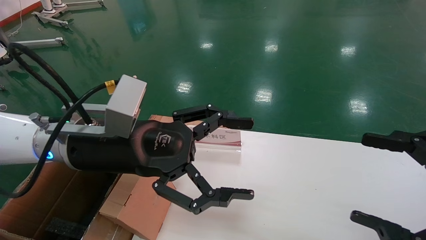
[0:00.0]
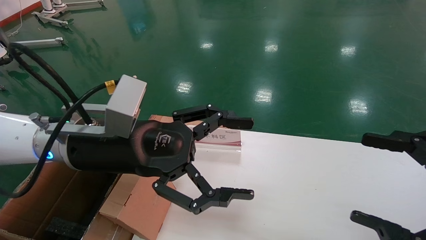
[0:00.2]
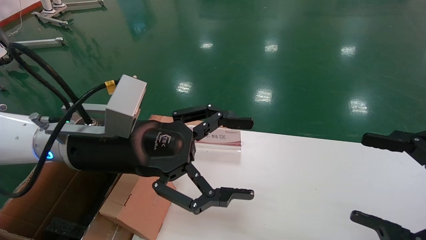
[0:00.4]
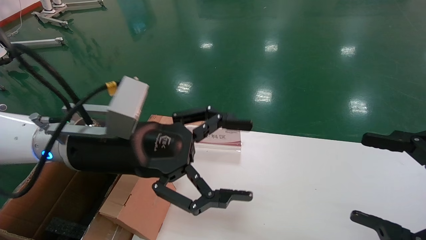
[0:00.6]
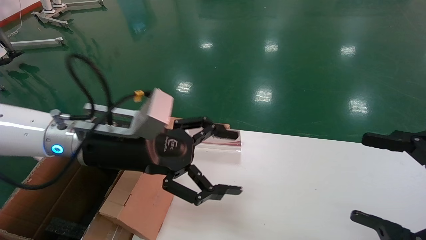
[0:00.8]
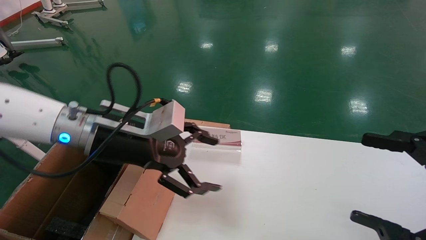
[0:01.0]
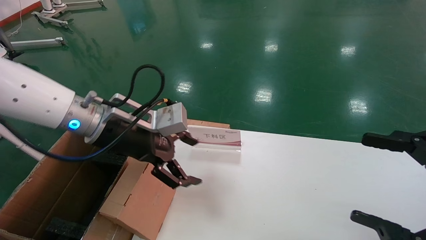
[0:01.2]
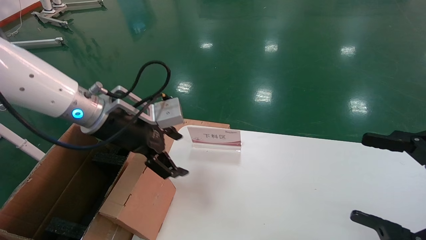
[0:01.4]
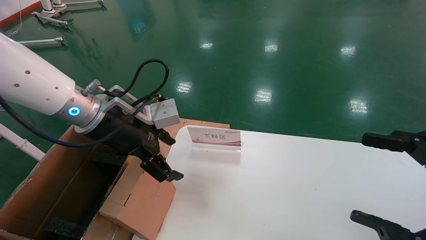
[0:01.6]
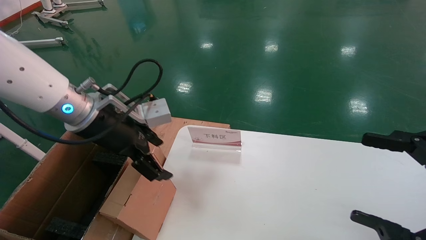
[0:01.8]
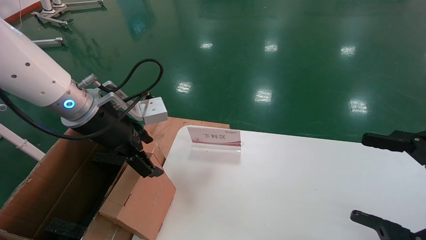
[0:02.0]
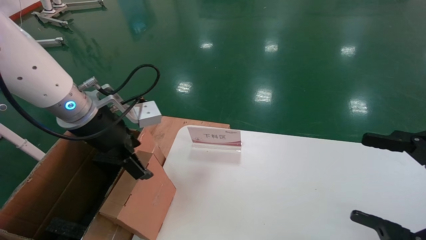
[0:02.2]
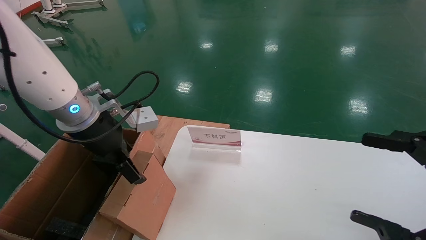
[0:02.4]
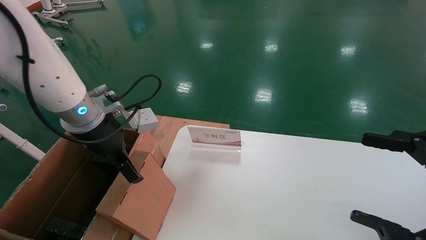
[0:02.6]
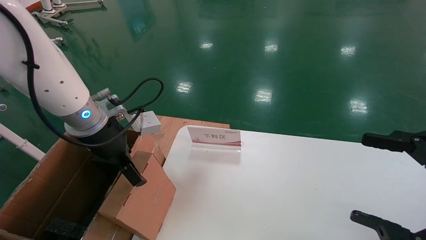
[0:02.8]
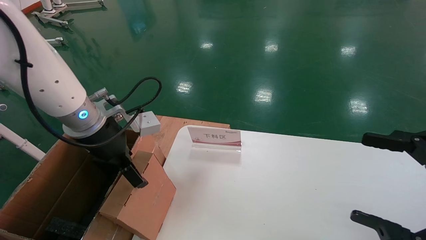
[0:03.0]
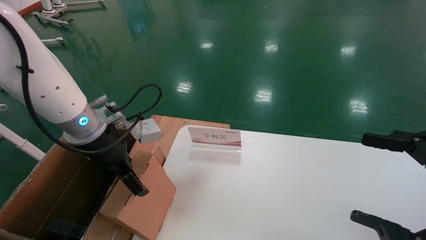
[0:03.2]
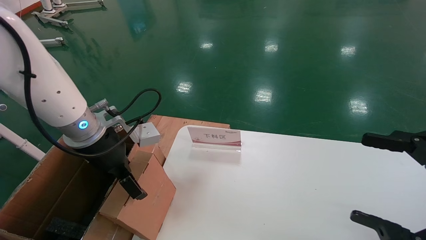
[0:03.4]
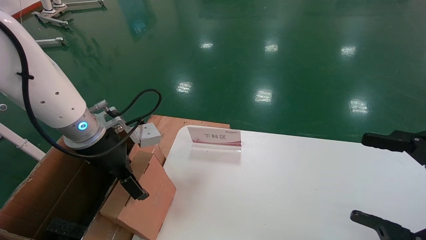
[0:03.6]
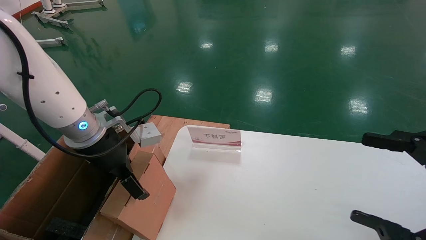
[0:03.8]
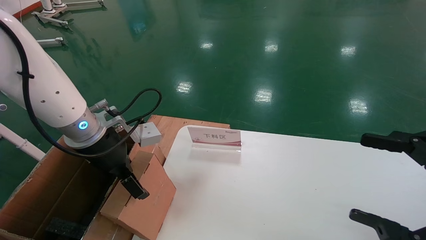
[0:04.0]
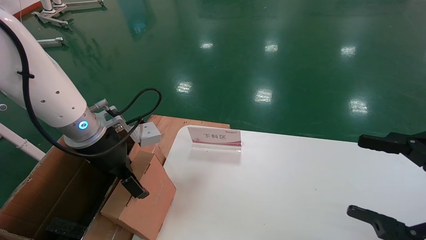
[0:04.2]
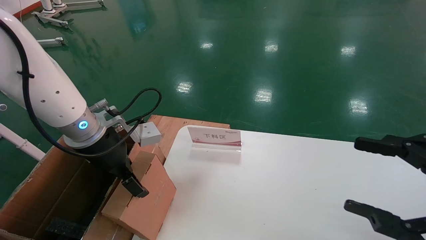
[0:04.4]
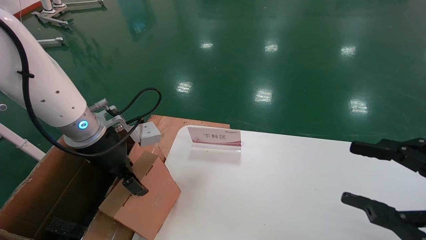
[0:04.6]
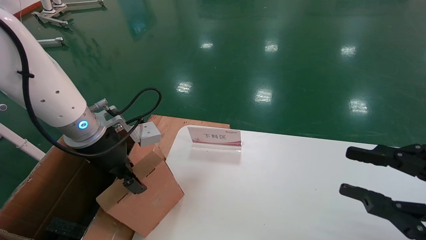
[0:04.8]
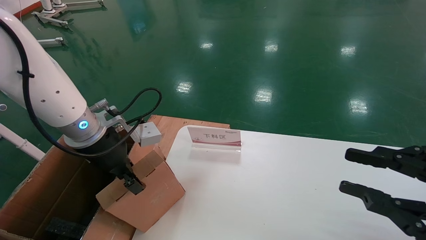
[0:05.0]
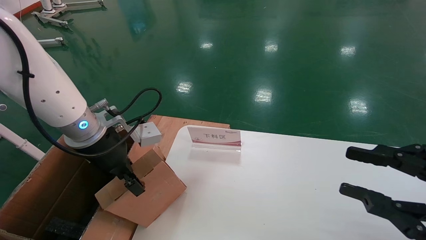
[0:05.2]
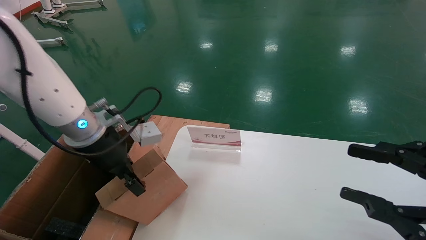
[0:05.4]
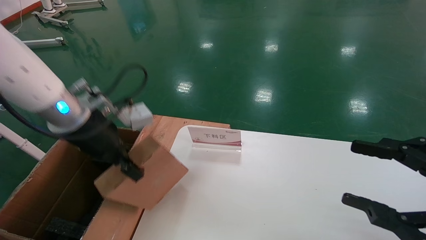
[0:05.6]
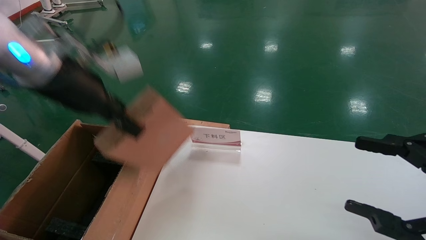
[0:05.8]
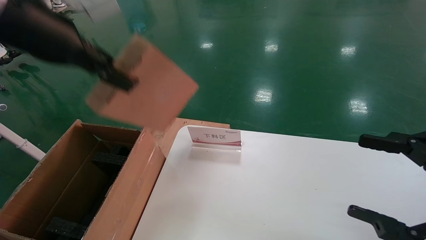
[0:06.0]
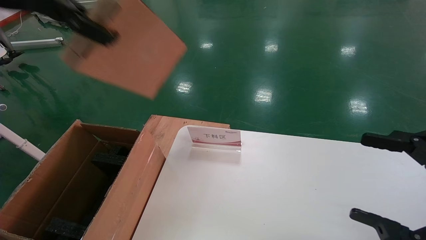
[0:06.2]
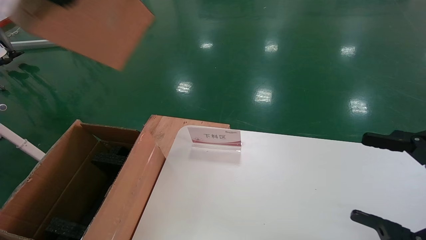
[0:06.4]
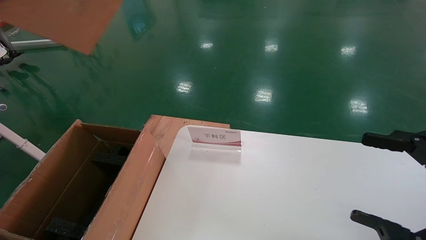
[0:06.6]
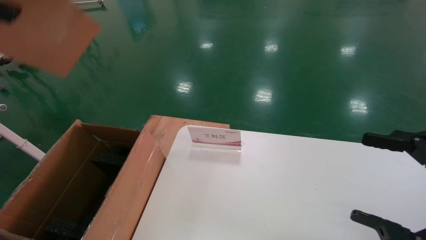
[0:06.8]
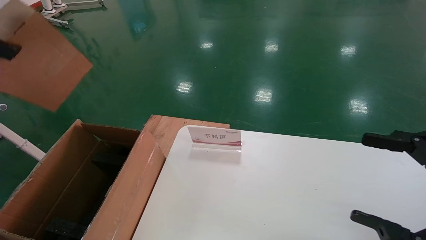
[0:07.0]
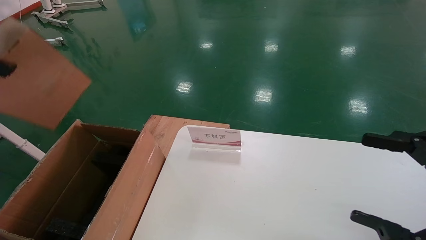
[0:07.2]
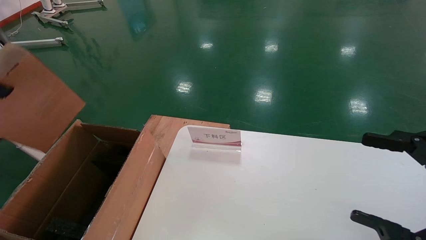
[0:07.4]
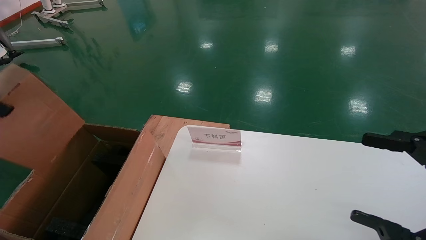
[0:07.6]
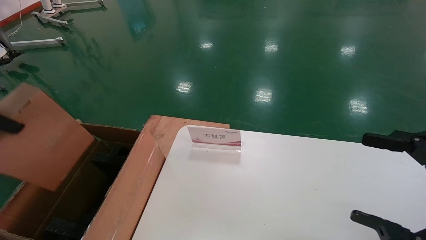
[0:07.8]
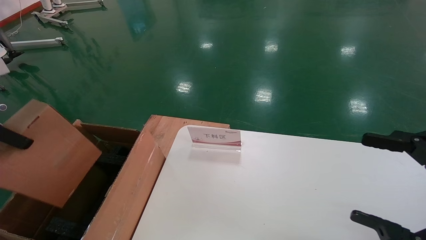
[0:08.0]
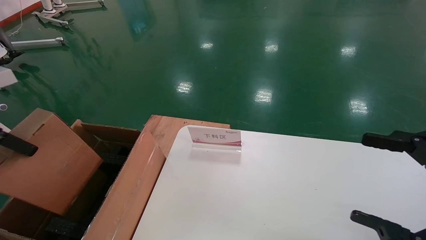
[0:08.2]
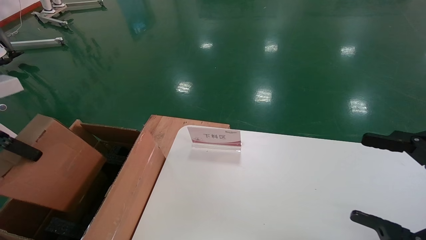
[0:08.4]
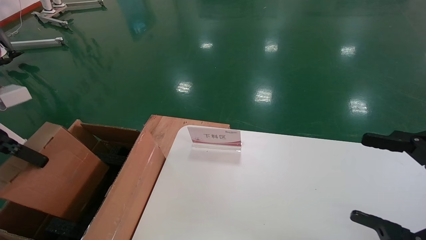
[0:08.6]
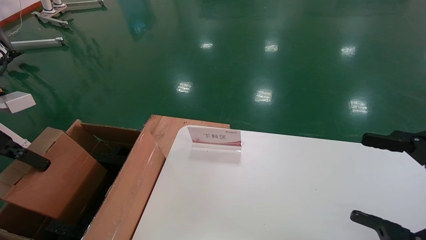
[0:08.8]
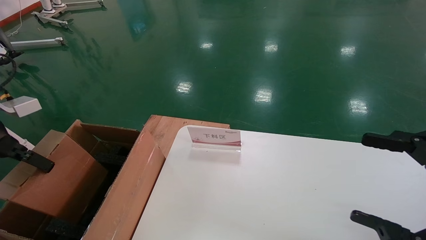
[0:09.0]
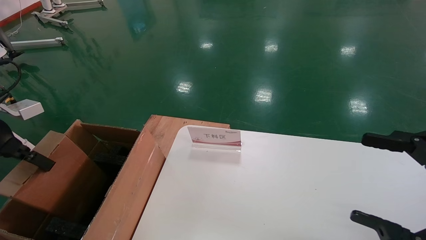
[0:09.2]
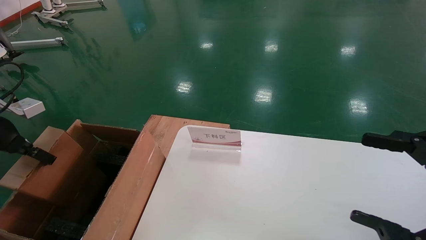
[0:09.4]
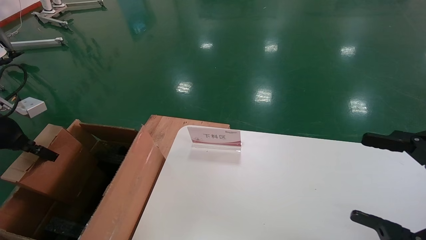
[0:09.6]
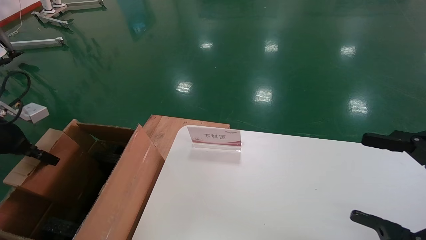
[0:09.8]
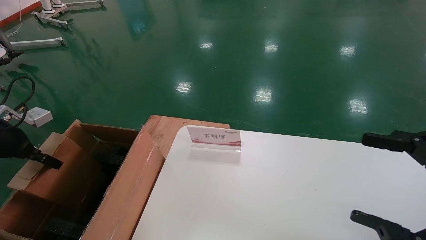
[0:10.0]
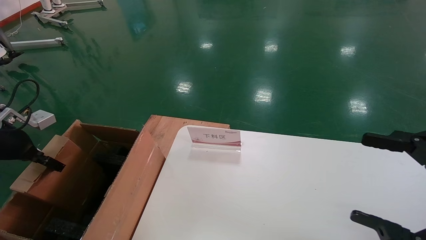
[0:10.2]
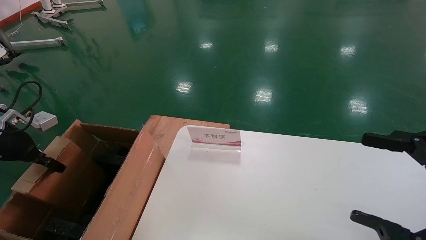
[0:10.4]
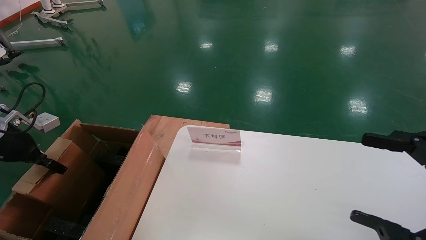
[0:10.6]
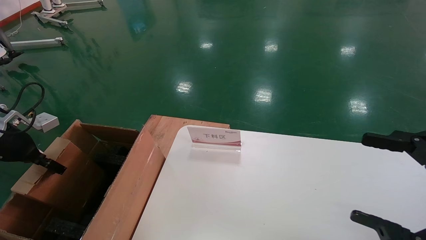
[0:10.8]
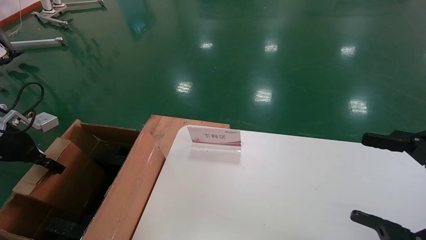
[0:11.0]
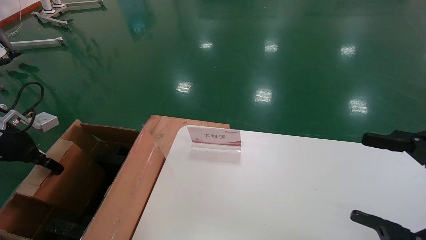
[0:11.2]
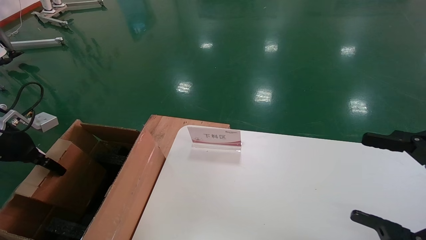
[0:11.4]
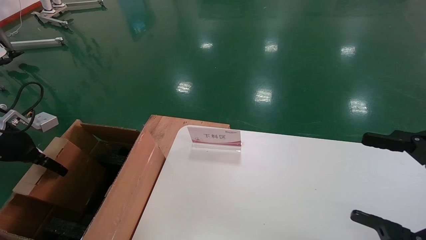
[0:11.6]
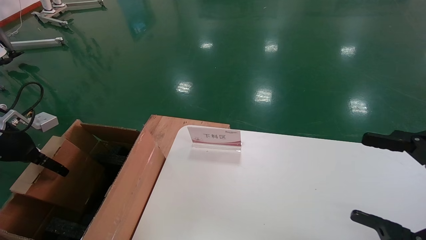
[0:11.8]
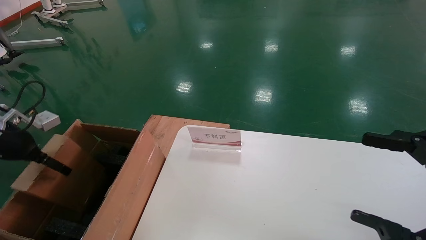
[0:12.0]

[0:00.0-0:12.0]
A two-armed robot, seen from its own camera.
Task of the whole recording: pick up the small cardboard box and load it into the large cardboard box.
Step, 0:01.0 to 0:05.0: Pick up the mouse and power cord box.
Step, 0:05.2 to 0:11.2: Place the mouse and power cord box into the case.
0:00.0 to 0:01.6: The left gripper shifts about 5 cm forward.
0:03.0 to 0:04.4: The grippers make only small movements.
0:04.4 to 0:06.0: The right gripper closes and opens again; the left gripper goes approximately 20 cm upward, and closes its fingers.
0:06.0 to 0:07.6: The left gripper travels to the left and backward by approximately 20 cm.
0:07.6 to 0:09.0: The left gripper travels downward and forward by some 15 cm.
0:09.0 to 0:10.4: The left gripper moves downward and forward, some 10 cm.
0:10.4 to 0:12.0: The left gripper opens.

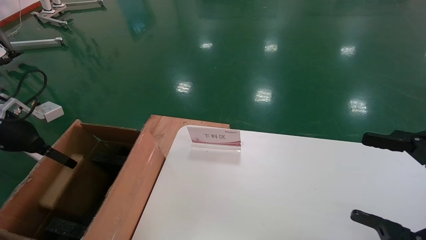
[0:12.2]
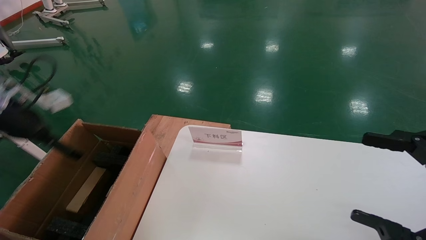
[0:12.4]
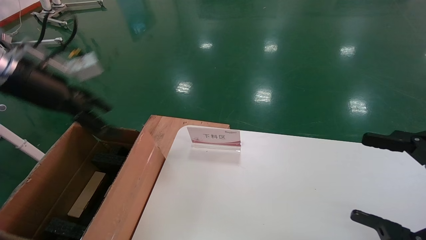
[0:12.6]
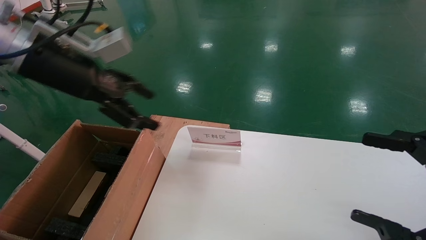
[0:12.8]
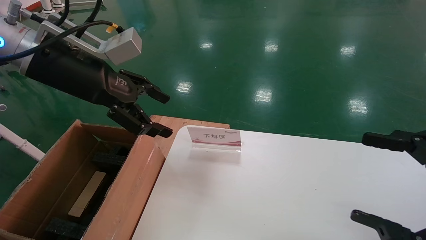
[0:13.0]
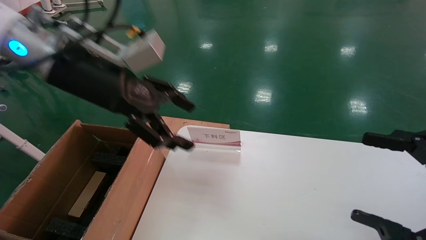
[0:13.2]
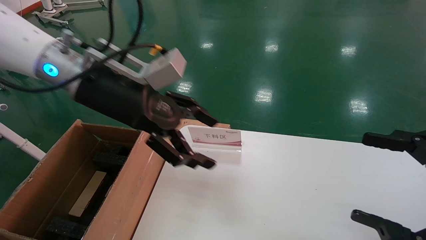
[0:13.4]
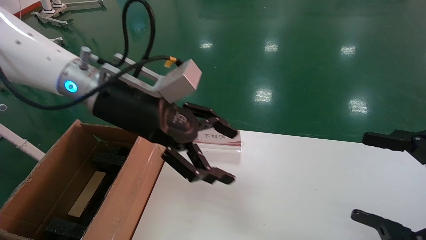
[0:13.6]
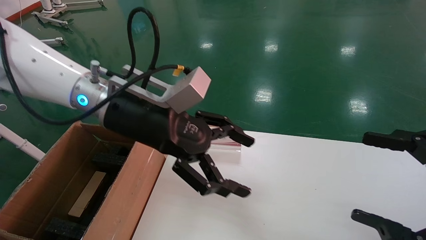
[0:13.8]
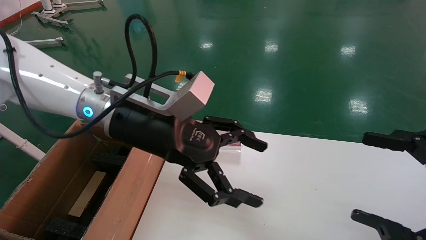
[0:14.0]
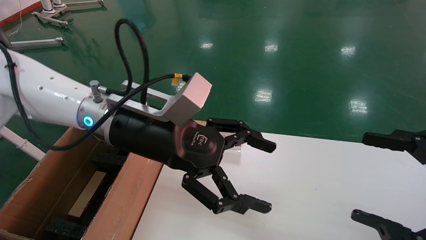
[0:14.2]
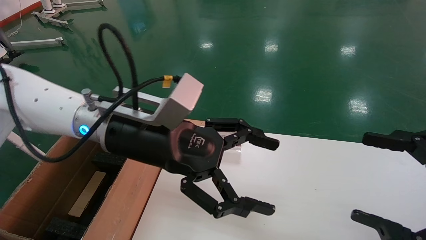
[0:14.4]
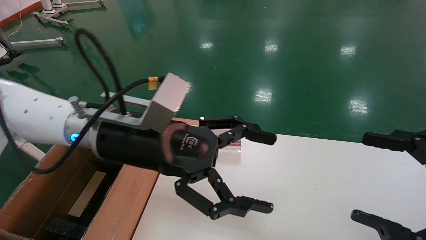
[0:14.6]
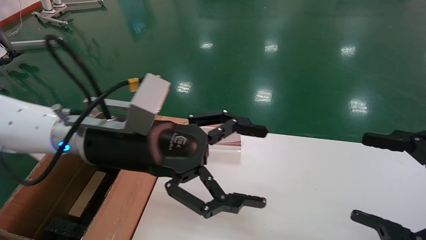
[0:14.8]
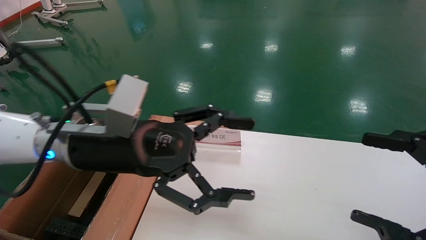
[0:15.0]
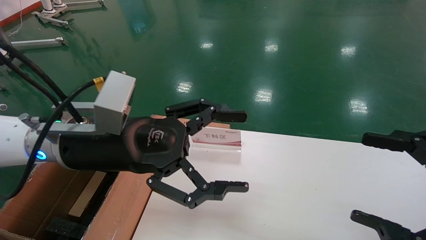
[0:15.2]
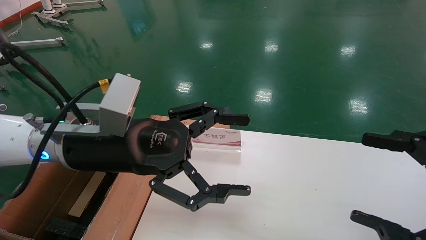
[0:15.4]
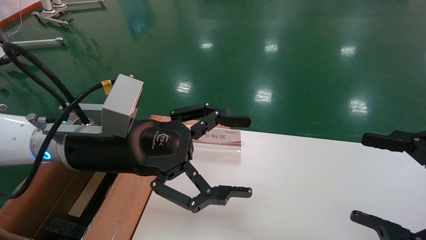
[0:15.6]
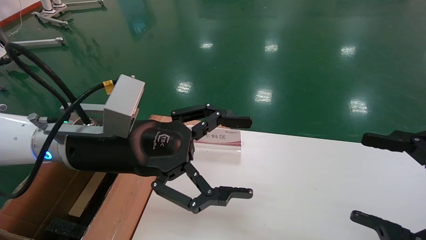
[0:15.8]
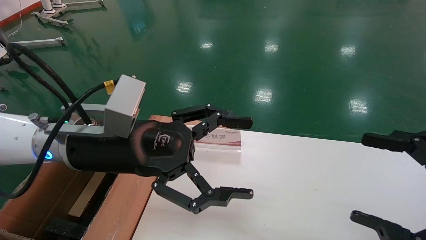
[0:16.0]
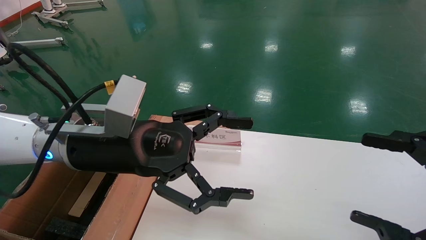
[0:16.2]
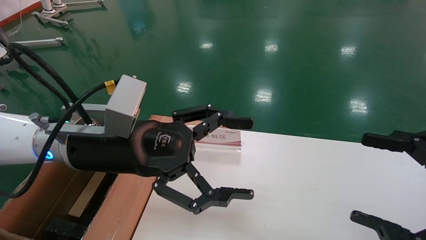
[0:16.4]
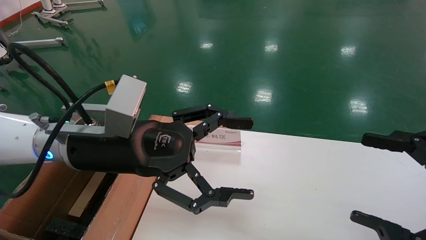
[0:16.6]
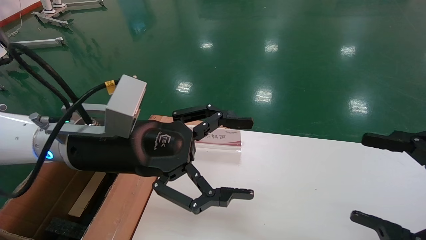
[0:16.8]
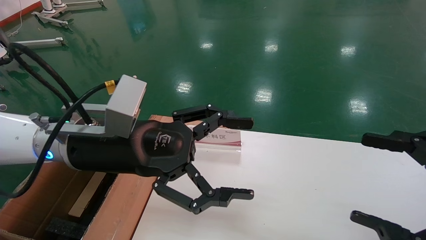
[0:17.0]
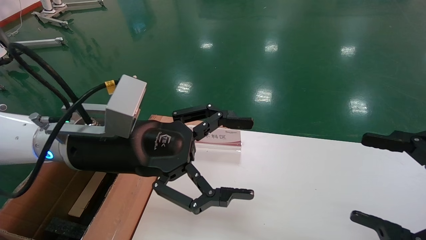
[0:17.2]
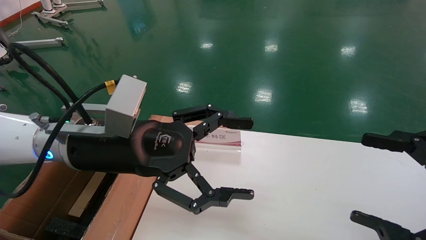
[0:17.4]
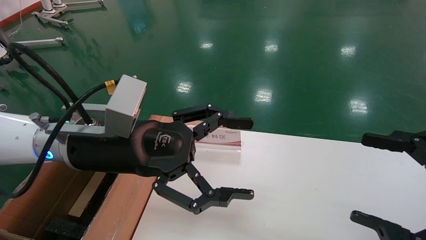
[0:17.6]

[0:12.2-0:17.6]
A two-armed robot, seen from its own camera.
Task of the whole recording: pick up the small cardboard box and load it into the large cardboard box.
0:12.2 to 0:13.6: The left gripper shifts approximately 30 cm to the right.
0:13.6 to 0:15.0: The left gripper is displaced backward by about 5 cm.
0:15.0 to 0:17.6: Both grippers stay put.
